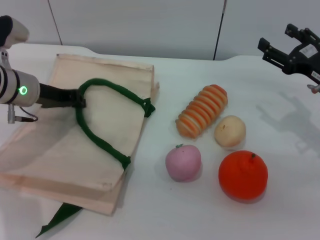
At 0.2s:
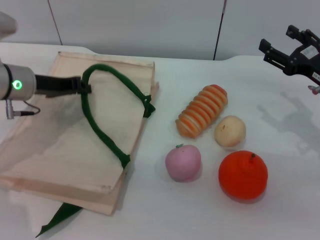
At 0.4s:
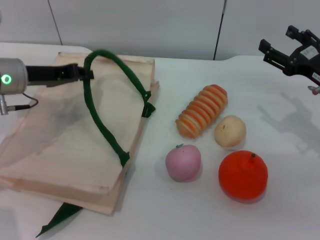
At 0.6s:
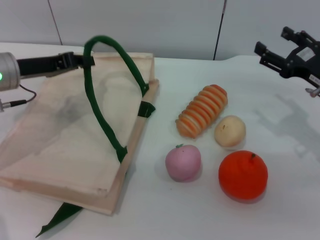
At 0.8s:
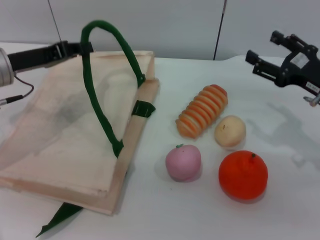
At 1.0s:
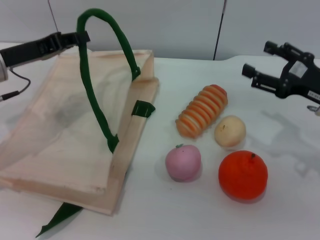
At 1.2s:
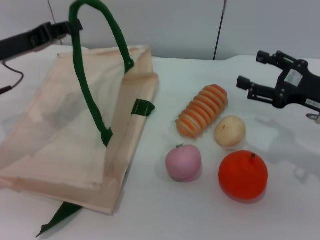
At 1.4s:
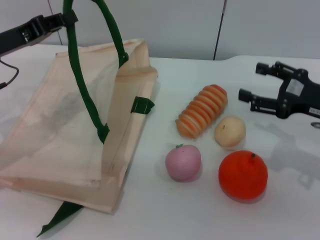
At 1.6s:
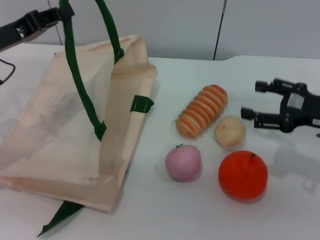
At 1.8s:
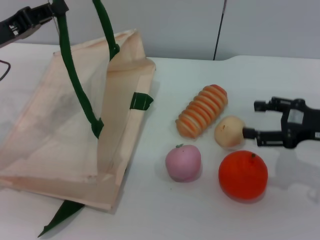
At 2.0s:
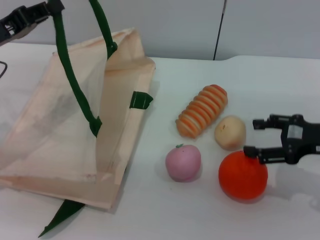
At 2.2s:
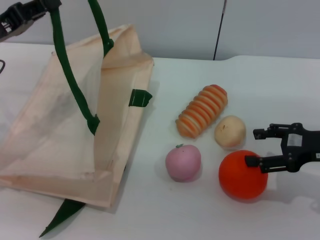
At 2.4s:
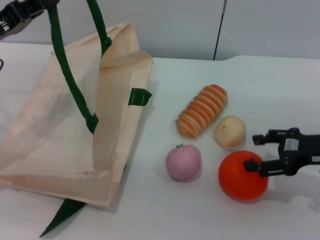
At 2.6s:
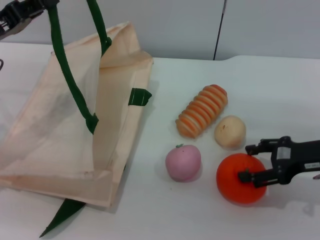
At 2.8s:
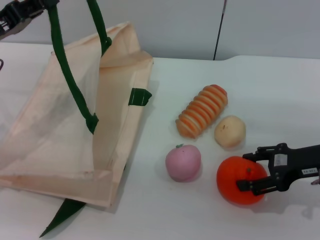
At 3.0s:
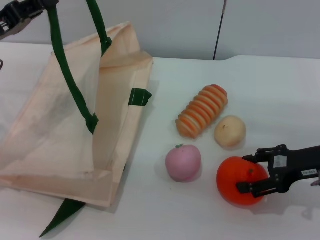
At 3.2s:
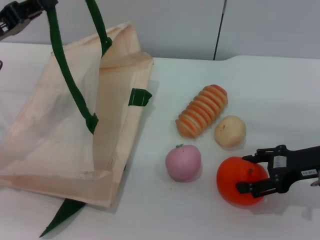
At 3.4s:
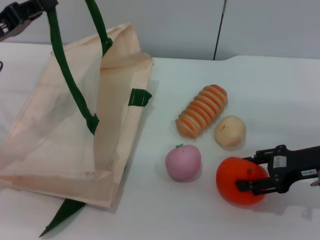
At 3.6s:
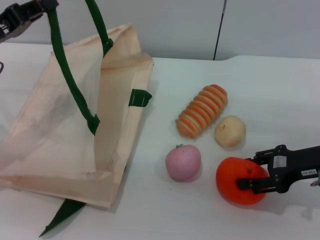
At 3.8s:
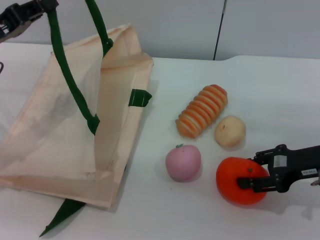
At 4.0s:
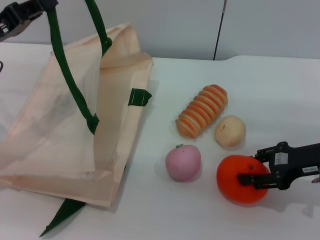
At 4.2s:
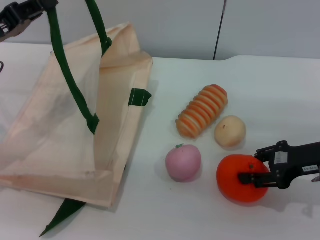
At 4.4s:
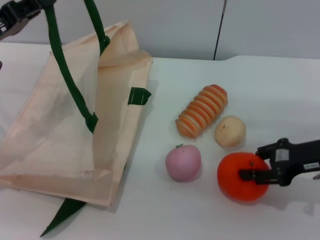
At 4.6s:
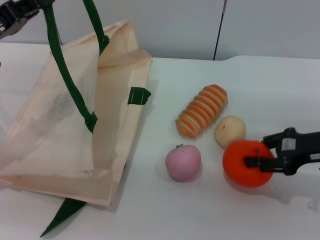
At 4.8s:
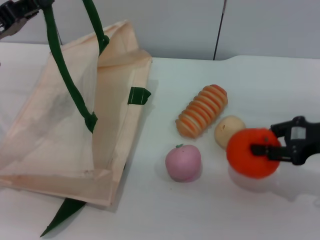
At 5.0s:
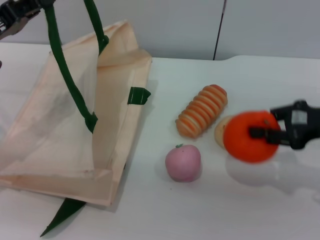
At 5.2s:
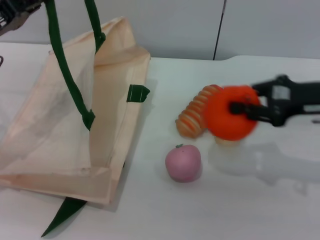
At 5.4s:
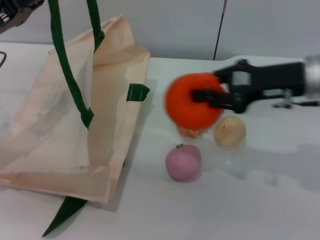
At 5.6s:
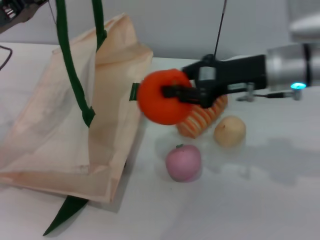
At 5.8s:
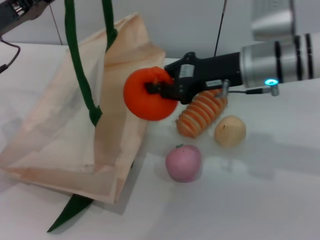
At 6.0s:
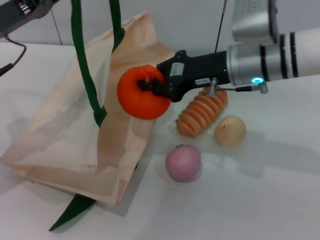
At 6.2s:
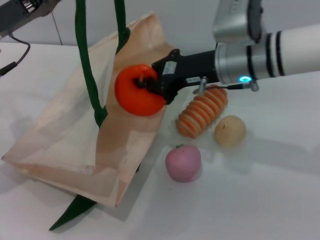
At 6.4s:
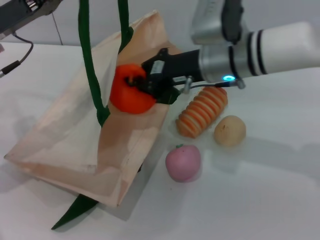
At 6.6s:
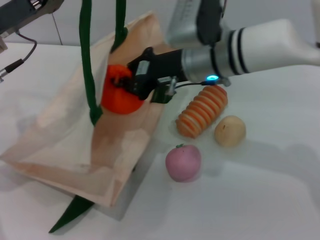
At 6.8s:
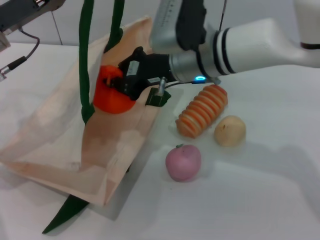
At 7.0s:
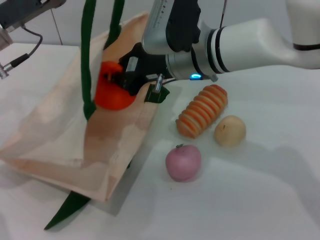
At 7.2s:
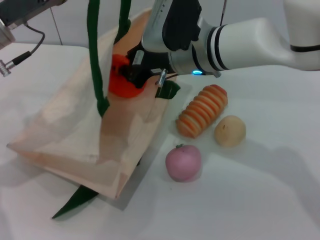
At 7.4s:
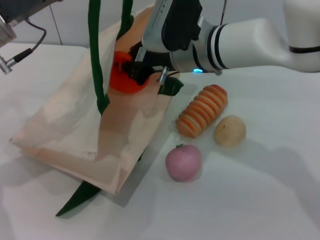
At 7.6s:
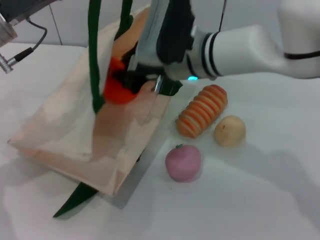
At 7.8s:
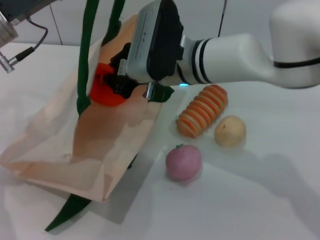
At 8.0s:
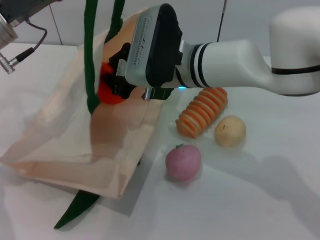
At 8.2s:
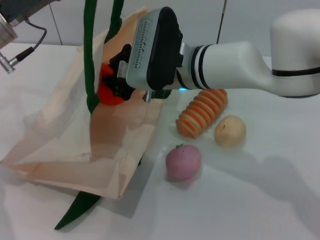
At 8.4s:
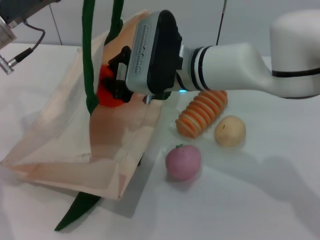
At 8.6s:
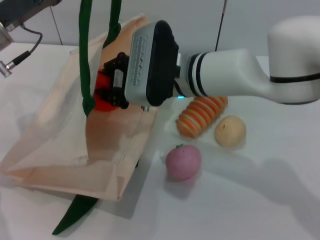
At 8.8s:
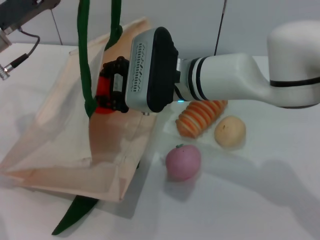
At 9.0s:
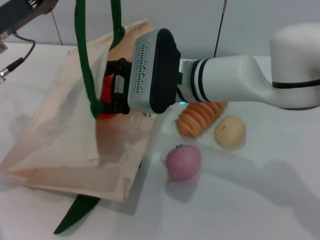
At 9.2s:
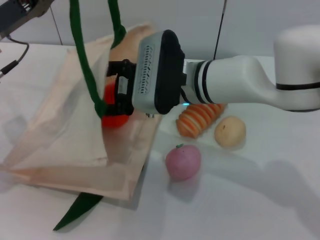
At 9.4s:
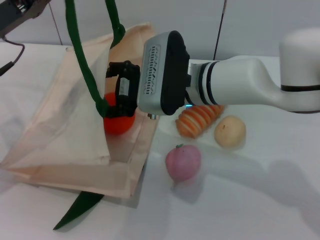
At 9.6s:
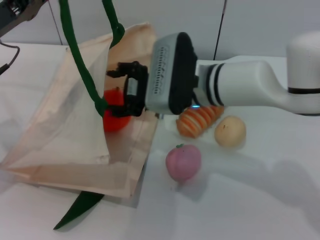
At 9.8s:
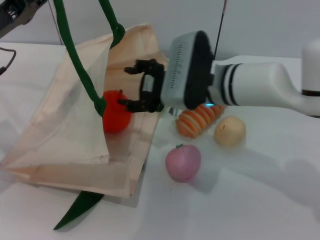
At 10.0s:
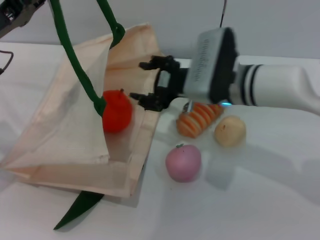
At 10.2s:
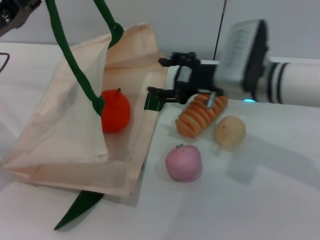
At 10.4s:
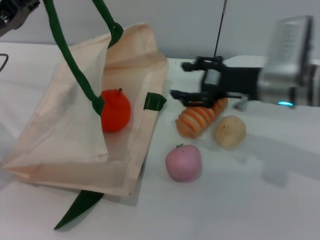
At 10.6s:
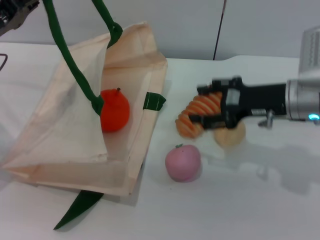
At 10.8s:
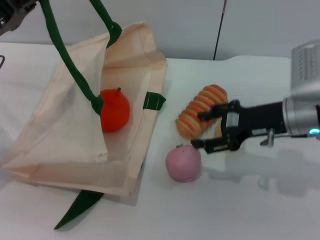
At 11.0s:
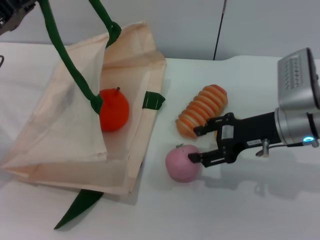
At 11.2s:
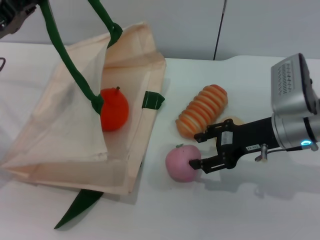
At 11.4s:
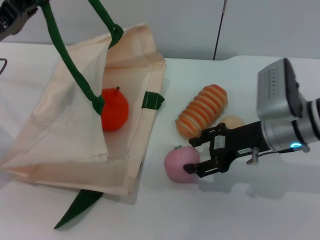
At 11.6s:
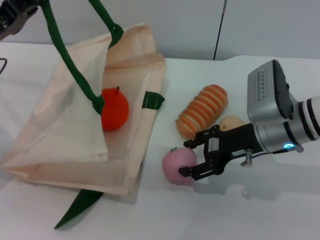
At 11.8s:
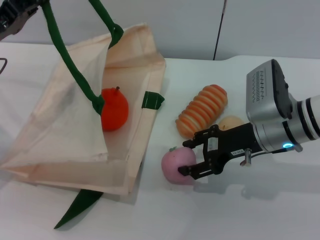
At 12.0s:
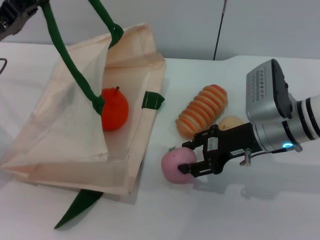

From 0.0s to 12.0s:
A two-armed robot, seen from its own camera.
Task of the whole recording: pick up the orange and peach from the table and place it in the white handbag.
Step, from 0.8s to 4.8s: Pick up the orange with the right gripper.
Step, from 5.0s to 10.2s: Place the orange into the woven bag with the right gripper.
From 0.0s to 1.6s: The left gripper travels upward by roughly 5 cm.
From 3.0s to 4.4s: Both grippers stay put.
From 4.4s to 6.0s: The right gripper goes some 20 cm to the left, forward and upward.
From 6.0s to 7.6s: The right gripper is displaced to the left by approximately 10 cm.
From 7.6s to 9.0s: The right gripper opens up.
From 9.0s to 10.4s: The right gripper travels to the right by approximately 15 cm.

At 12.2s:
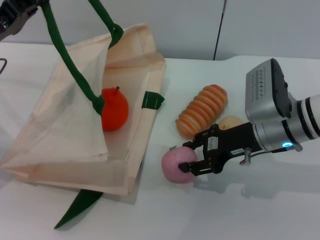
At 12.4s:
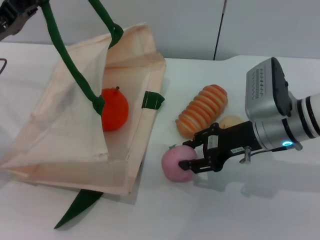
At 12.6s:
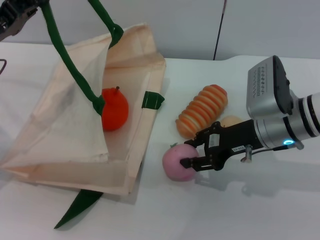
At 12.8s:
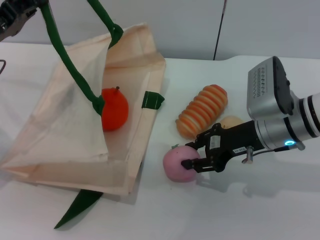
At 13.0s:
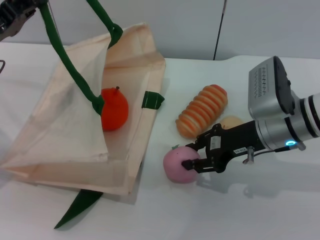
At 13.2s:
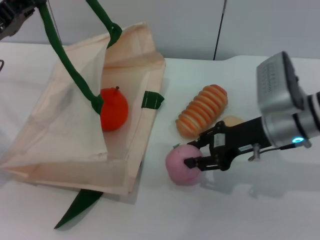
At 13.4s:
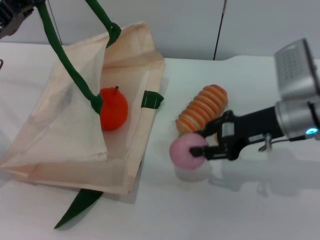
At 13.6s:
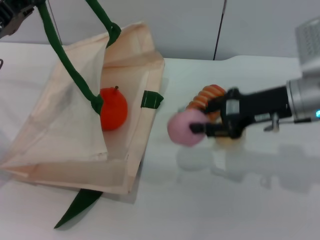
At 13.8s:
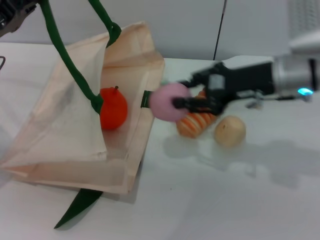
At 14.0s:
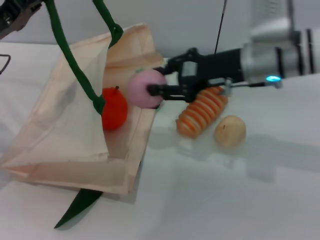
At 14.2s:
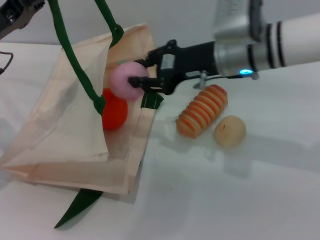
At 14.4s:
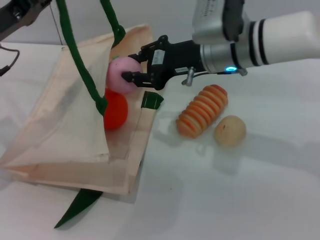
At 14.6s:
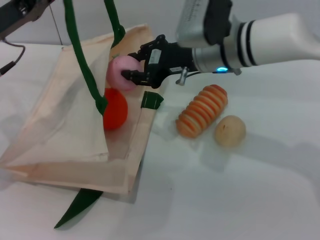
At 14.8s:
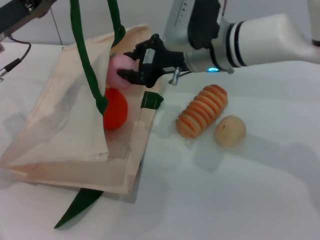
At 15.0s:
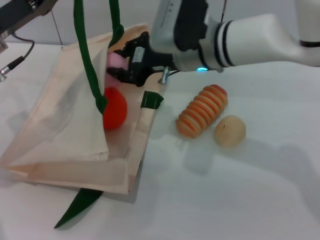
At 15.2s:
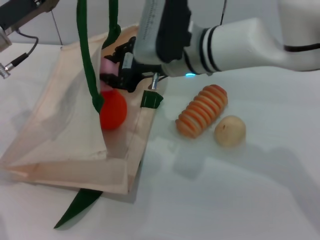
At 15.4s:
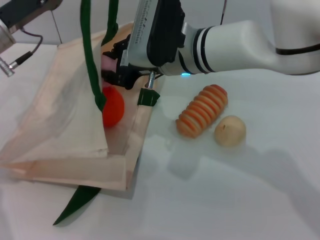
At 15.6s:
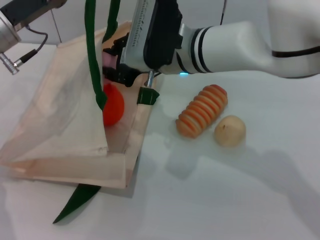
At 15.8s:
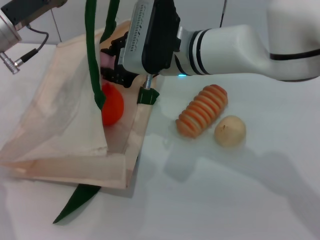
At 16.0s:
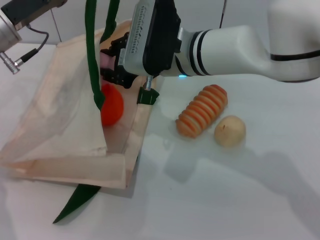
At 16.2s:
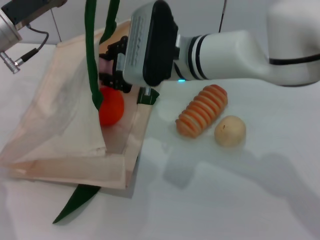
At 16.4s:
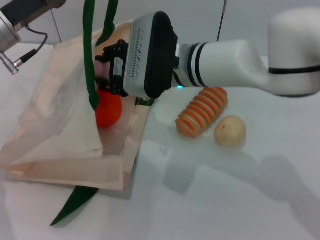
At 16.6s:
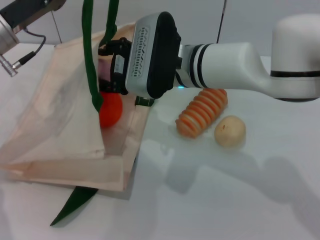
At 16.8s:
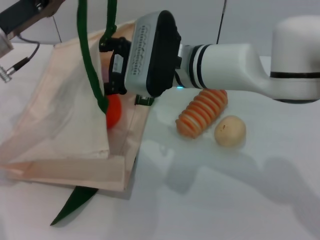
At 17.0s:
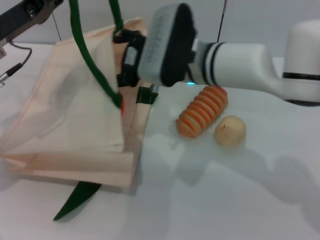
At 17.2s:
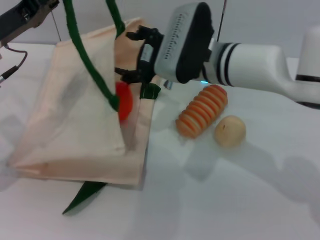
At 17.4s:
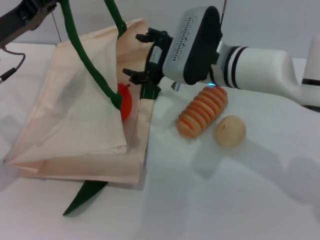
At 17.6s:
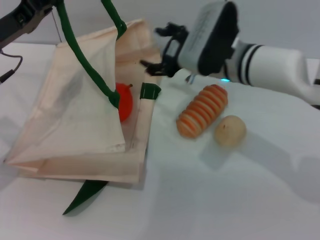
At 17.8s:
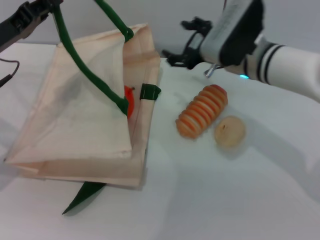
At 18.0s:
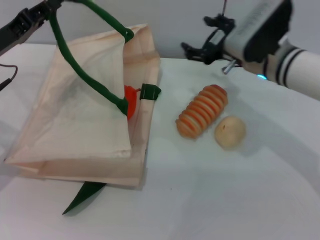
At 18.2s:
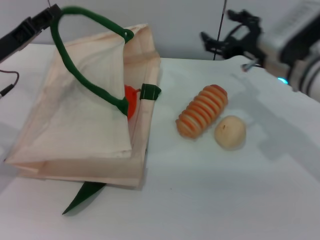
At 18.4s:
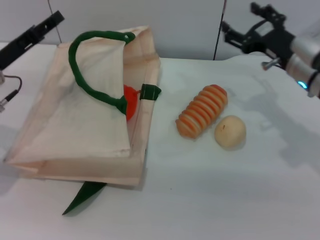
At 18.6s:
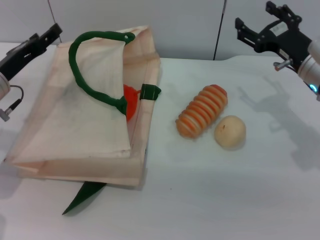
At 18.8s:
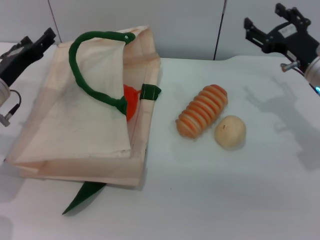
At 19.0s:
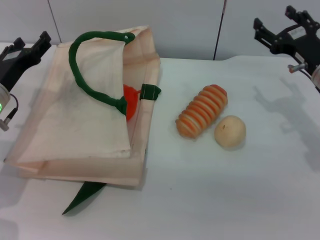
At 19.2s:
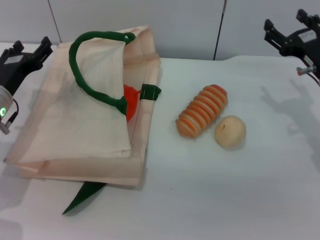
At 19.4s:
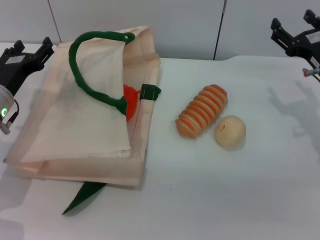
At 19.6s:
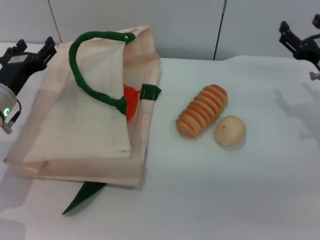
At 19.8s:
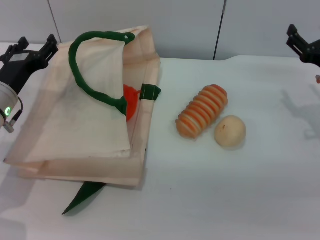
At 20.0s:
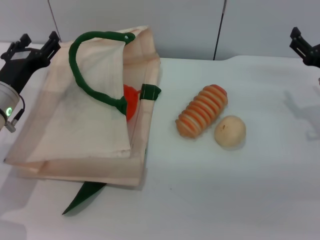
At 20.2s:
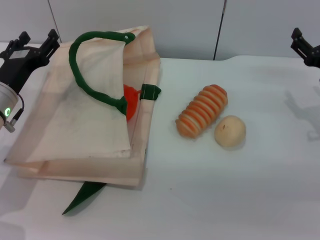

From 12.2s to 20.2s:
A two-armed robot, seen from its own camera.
Task of the whole recording: pick up the orange and peach from the table and place it in the white handbag.
Step, from 13.6s to 17.6s: Place the peach into the woven bag with the right gripper.
Step, from 17.8s to 19.2s: Lower the woven bag with the left gripper to close it.
From 12.2s to 13.8s: The right gripper goes approximately 5 cm upward.
From 13.8s to 15.4s: The left gripper moves about 5 cm. Meanwhile the right gripper shifts some 15 cm to the left.
From 15.4s to 17.0s: The right gripper opens its fingers.
From 17.0s to 18.6s: The left gripper goes roughly 5 cm downward, and opens up. The right gripper moves to the right, approximately 20 cm.
From 18.6s to 20.2s: The right gripper goes some 5 cm to the right.
